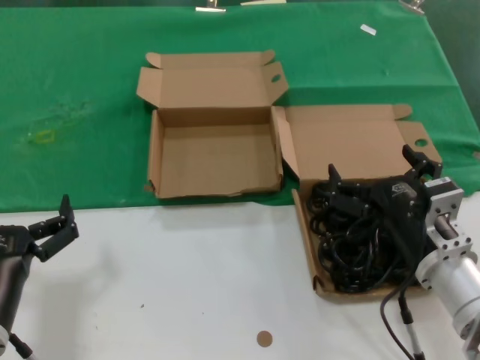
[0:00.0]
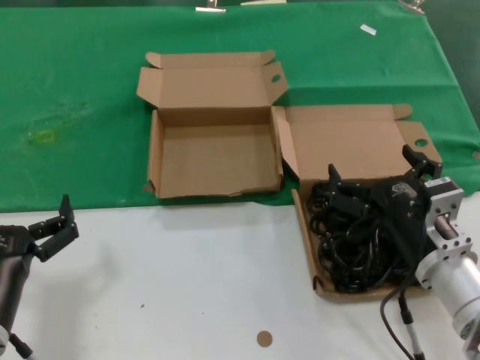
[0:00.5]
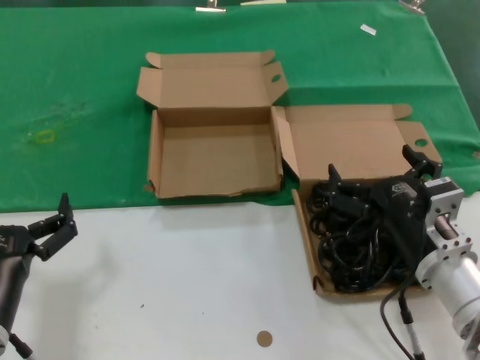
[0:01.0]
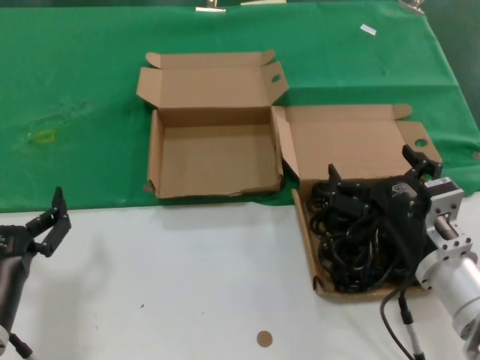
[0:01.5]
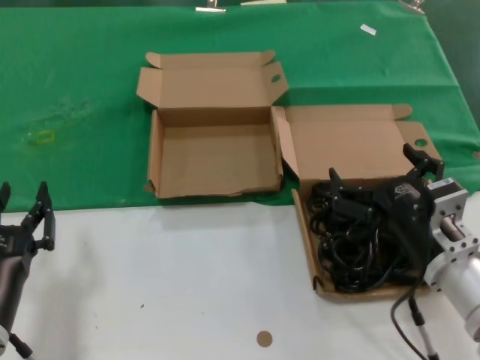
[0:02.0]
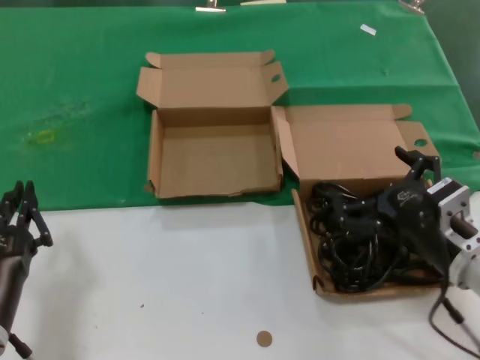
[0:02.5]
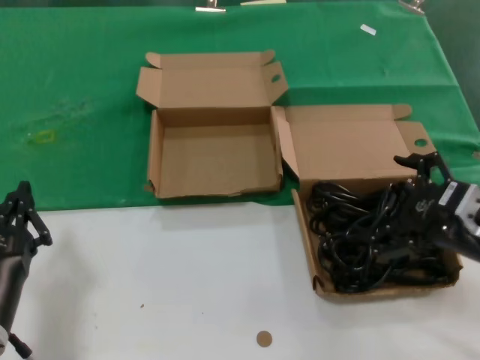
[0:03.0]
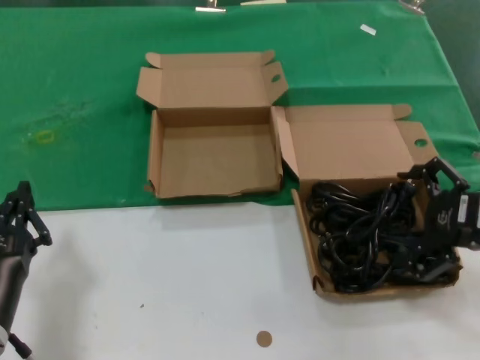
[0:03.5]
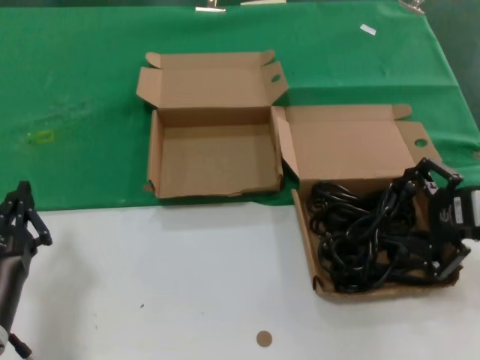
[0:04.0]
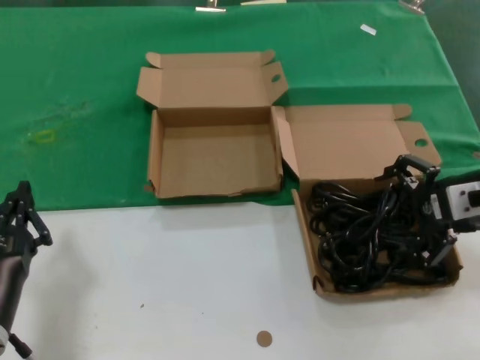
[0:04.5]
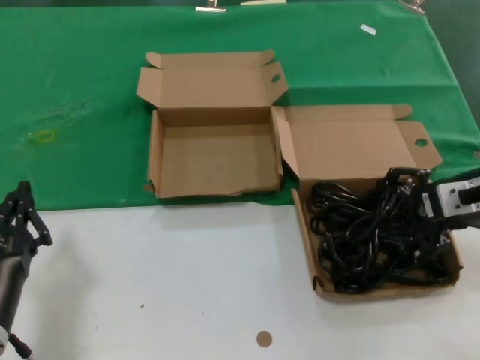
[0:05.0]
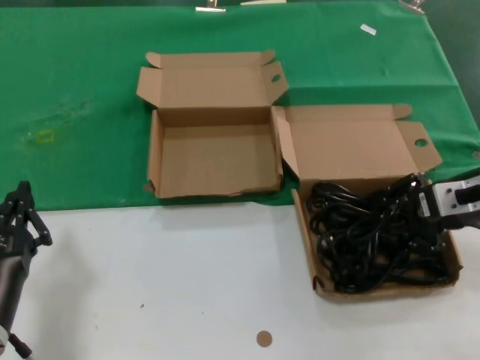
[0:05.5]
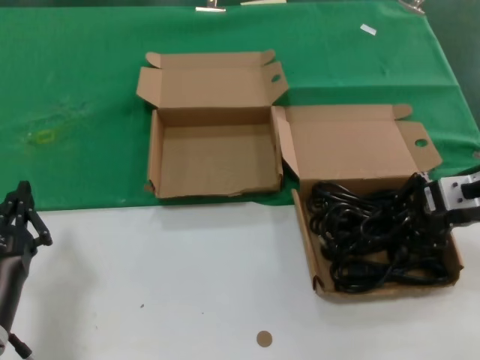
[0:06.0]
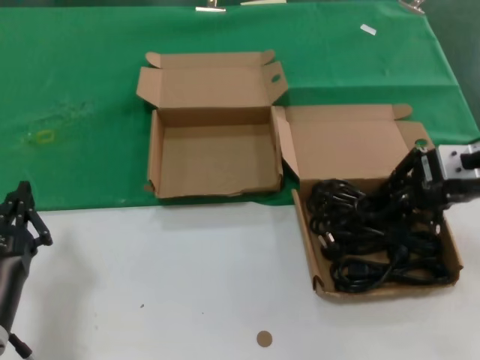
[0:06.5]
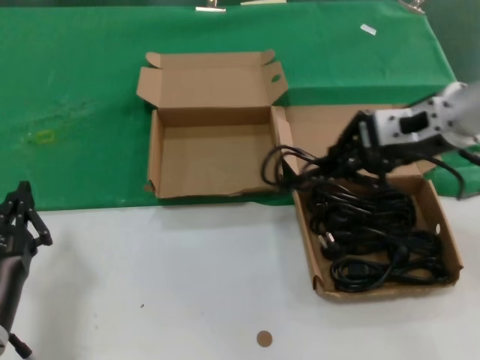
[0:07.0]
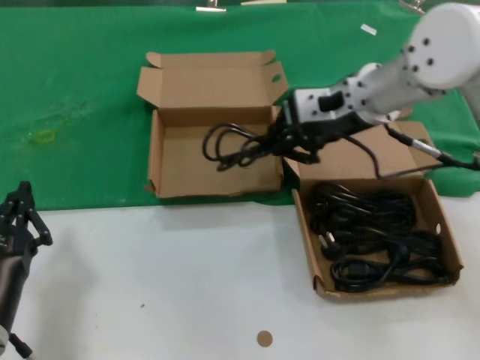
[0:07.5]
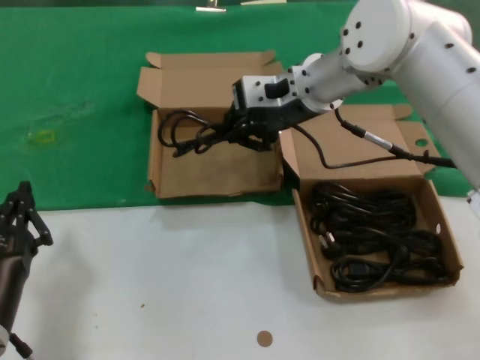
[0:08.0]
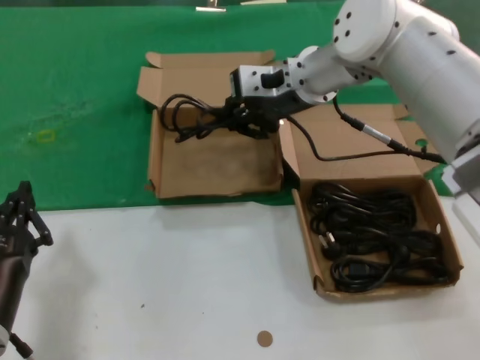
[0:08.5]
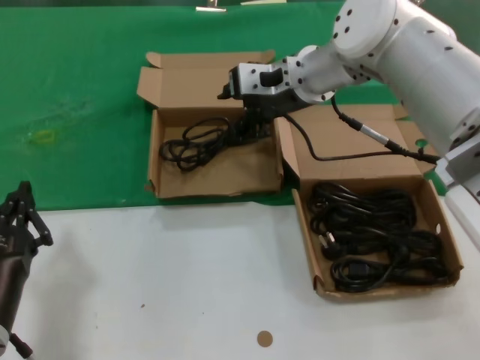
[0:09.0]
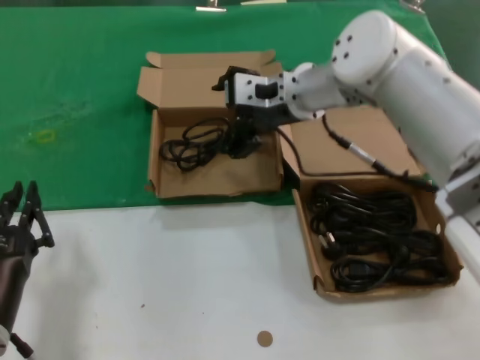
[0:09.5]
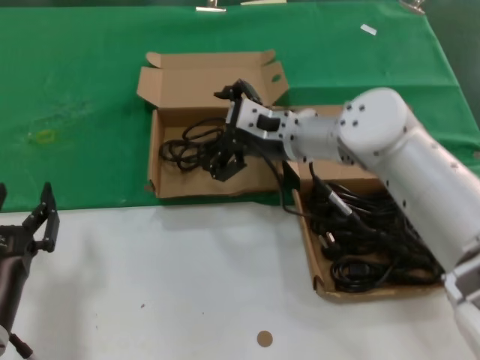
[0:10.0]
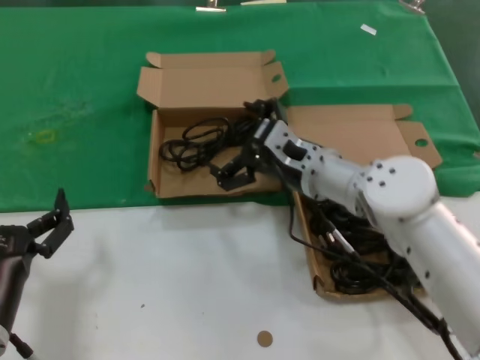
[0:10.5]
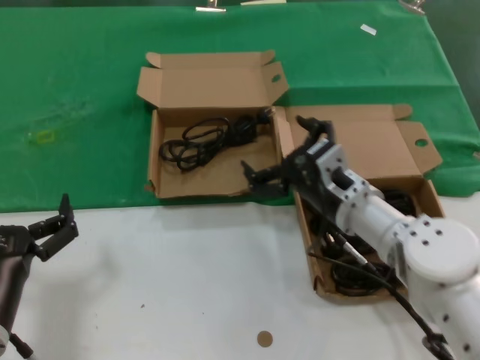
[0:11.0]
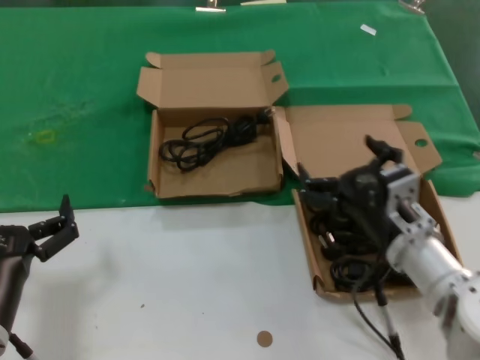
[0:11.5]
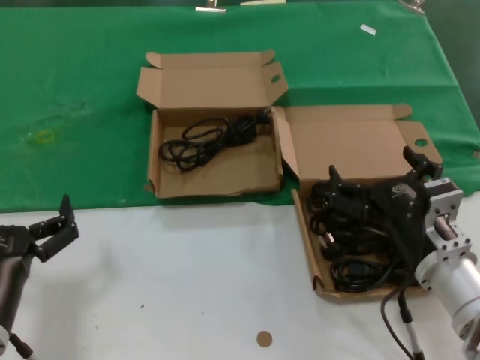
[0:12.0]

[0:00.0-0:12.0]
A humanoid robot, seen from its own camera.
Task of the whole recording: take the parts from the box containing them and put them into an empty box.
Step, 0:00.0 to 0:05.5: Grasp the data cable.
Step, 0:06.0 to 0:08.5: Place the data cable in the another box.
0:00.0 to 0:02.0: Neither hand changes place.
0:02.0 to 0:04.0: The right hand goes approximately 15 cm to the right and upward.
0:04.0 to 0:06.0: The right hand travels forward by approximately 5 cm.
0:06.0 to 0:08.0: The right hand shifts about 25 cm to the left and forward.
0:08.0 to 0:10.0: The right hand moves downward, about 10 cm.
0:10.0 to 0:12.0: The right hand moves backward, downward and to the right, approximately 25 cm.

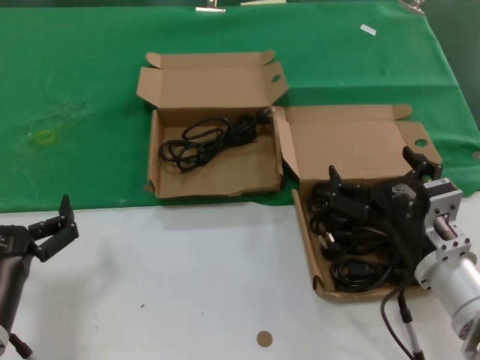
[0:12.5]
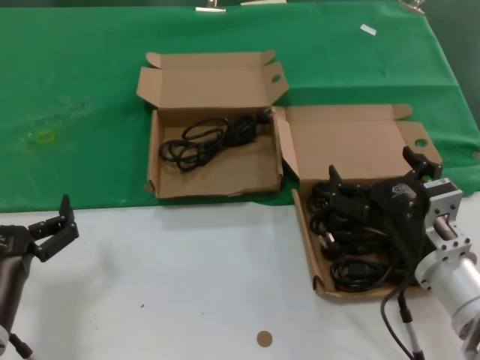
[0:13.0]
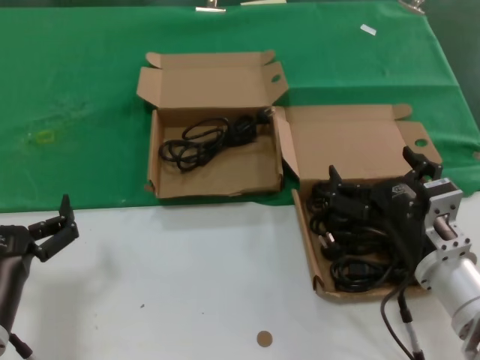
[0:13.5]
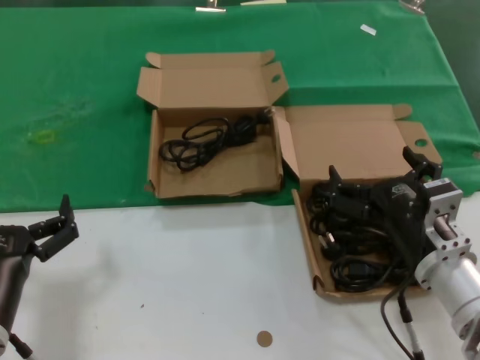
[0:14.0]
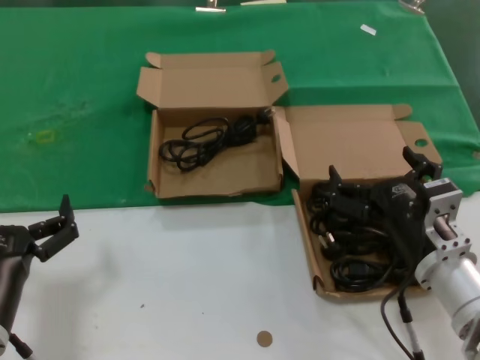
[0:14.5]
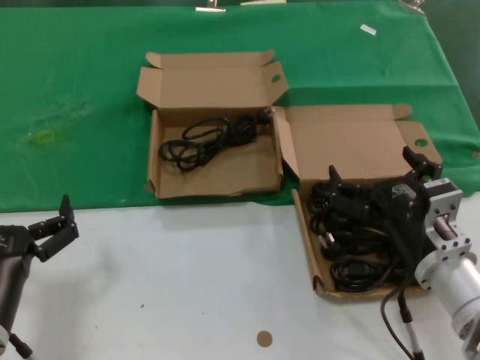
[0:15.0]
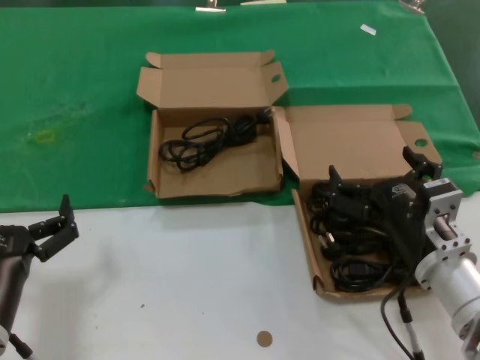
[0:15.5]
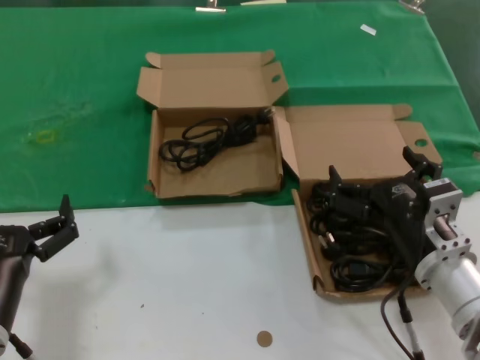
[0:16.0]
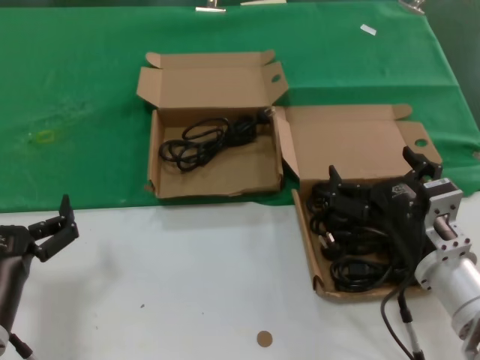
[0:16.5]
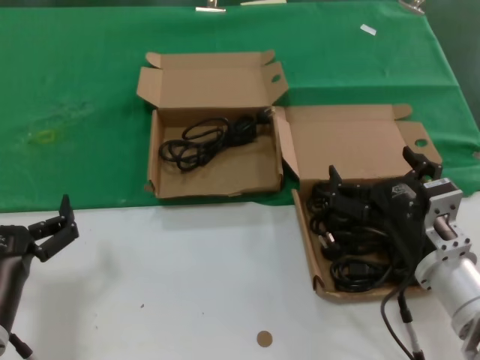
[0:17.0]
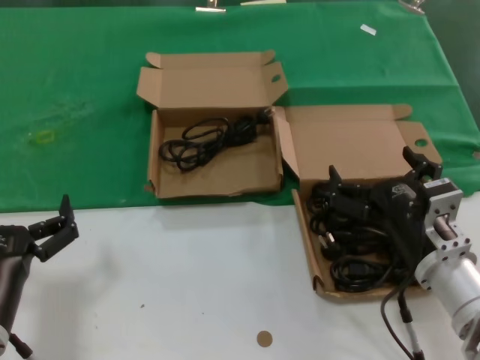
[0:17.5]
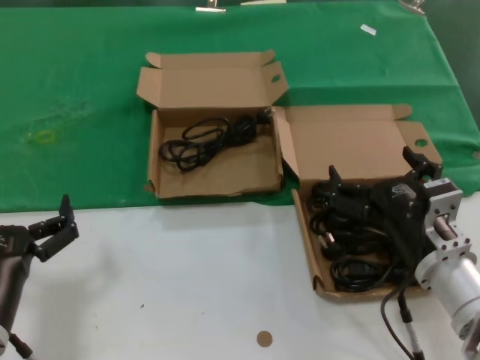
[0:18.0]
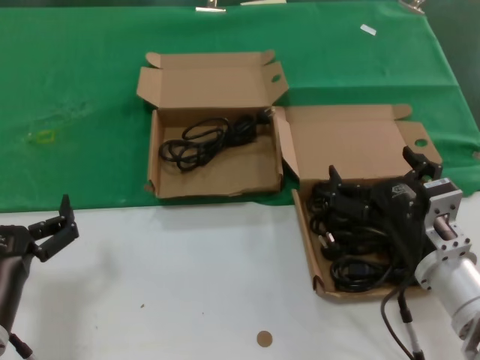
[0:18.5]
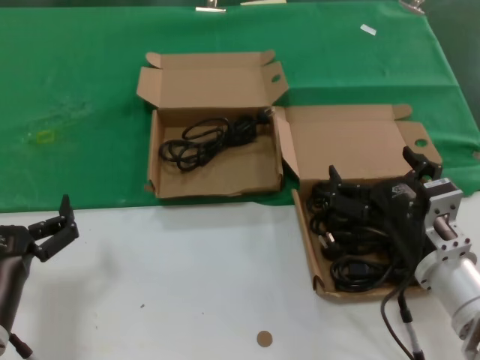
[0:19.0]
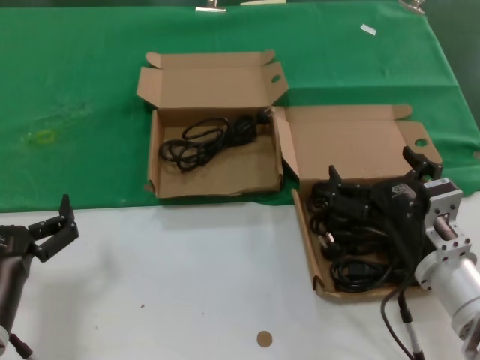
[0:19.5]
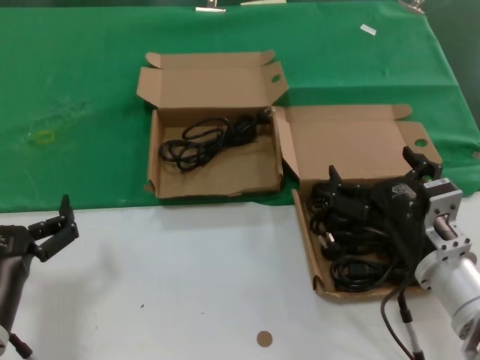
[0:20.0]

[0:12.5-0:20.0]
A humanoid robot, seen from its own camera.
Task of the whole recording: take the parts from the box containing them and put them into an empty box.
0:12.5 to 0:20.0: Neither hand changes place.

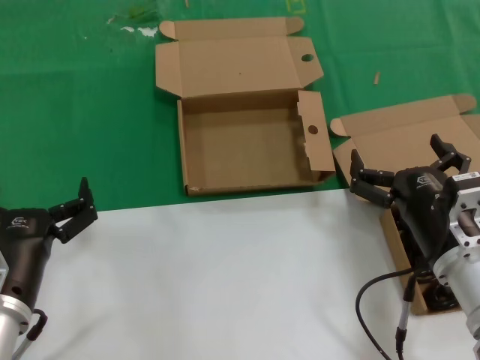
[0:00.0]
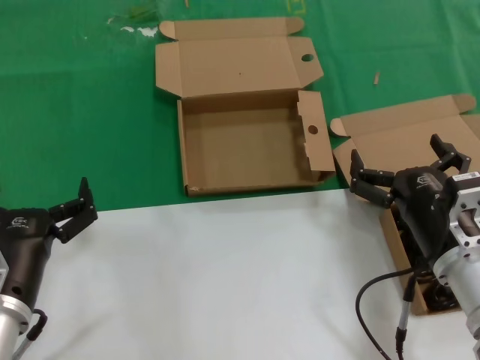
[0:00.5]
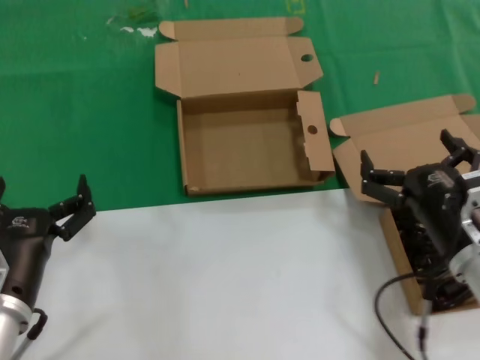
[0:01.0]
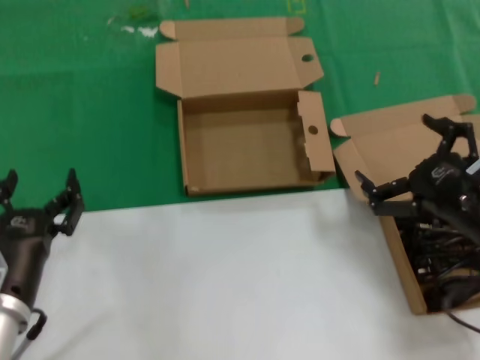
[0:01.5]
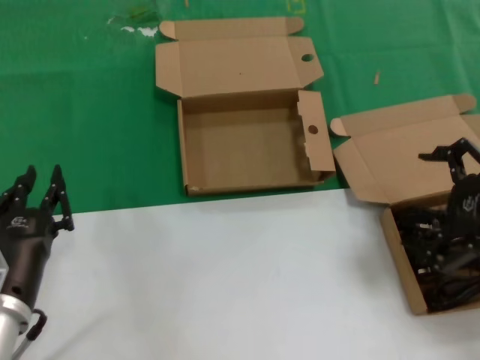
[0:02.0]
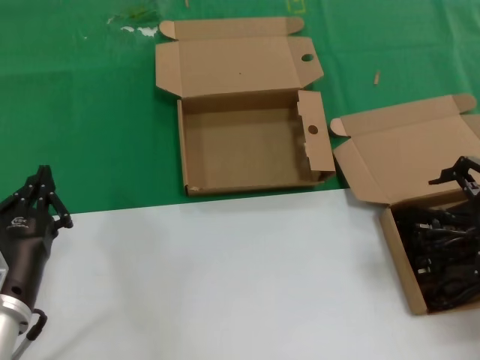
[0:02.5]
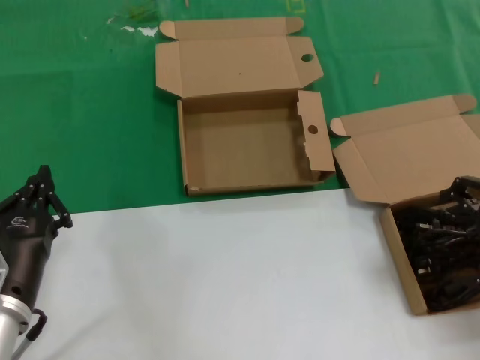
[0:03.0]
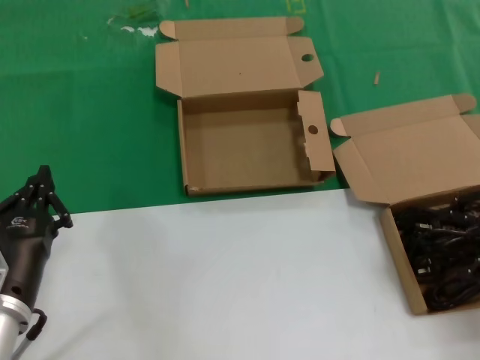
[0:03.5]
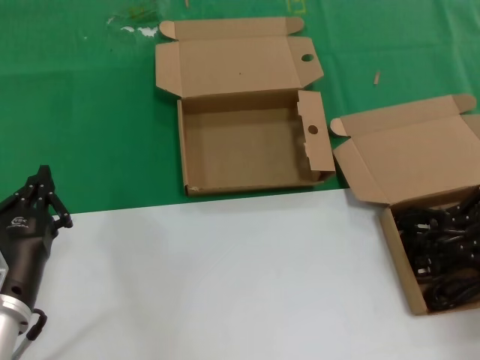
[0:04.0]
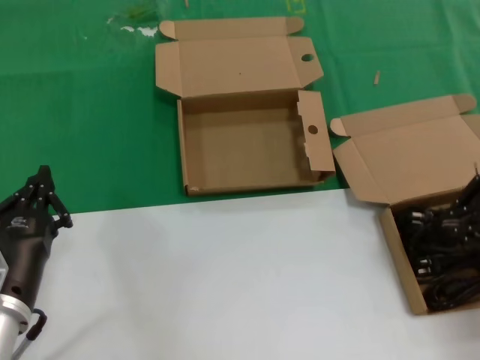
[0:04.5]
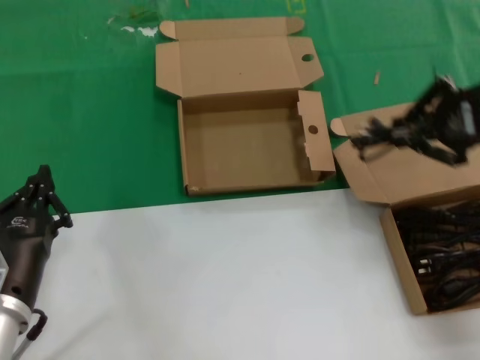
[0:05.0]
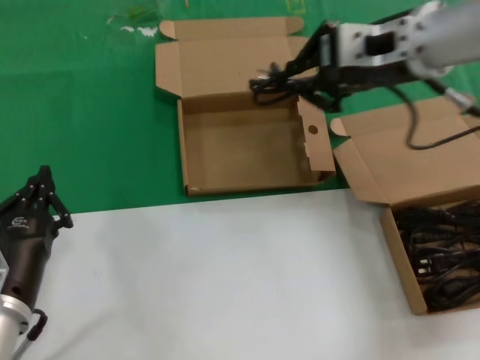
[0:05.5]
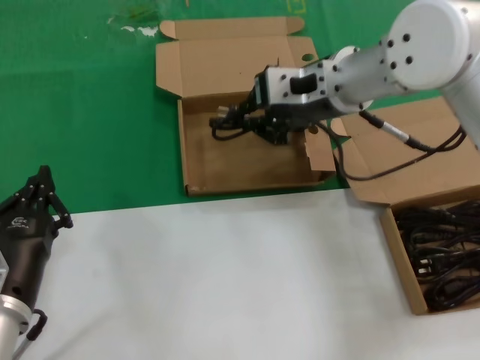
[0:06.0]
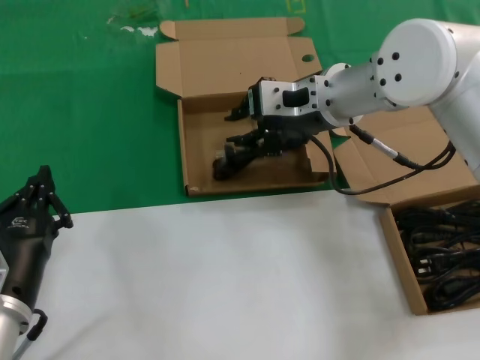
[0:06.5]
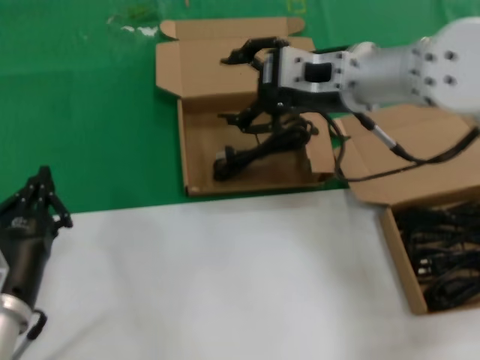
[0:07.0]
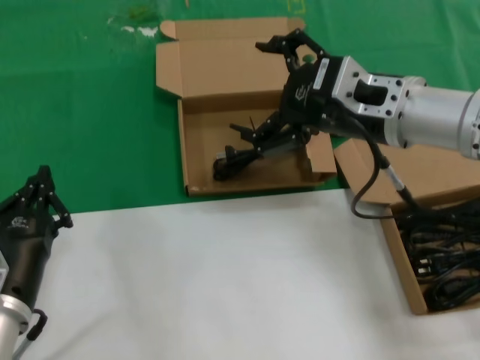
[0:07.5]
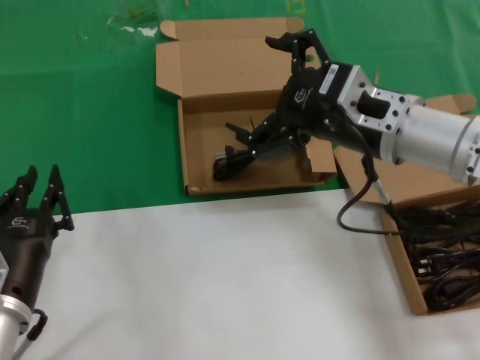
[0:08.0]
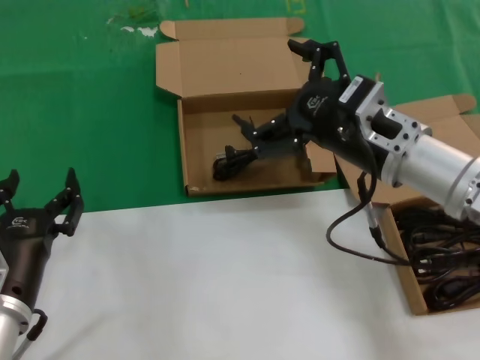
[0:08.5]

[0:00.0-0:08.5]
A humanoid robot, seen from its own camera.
Task of the whole recording: take the parts from the box containing them and put them into an empty box.
Step, 0:00.0 to 0:04.0: Grasp the data cable.
Step, 0:04.5 to 0:06.5: Place the data cable in the another box.
0:00.0 to 0:02.0: The right hand moves upward and to the right, approximately 20 cm.
0:02.0 to 0:04.0: The right hand travels forward by roughly 5 cm.
0:04.0 to 0:06.5: The right hand is displaced to the left and forward by some 30 cm.
0:06.5 to 0:08.5: The right hand shifts some 15 cm backward, downward and to the right.
